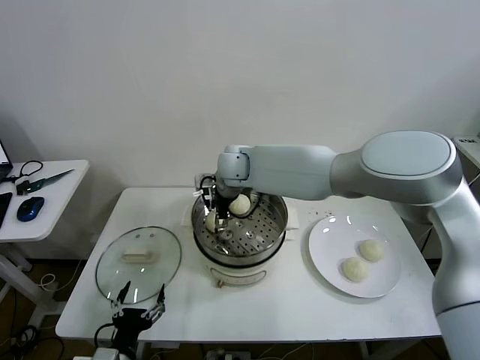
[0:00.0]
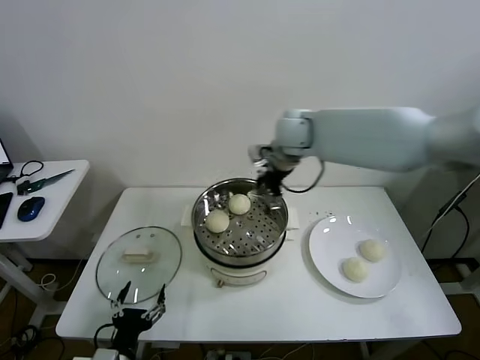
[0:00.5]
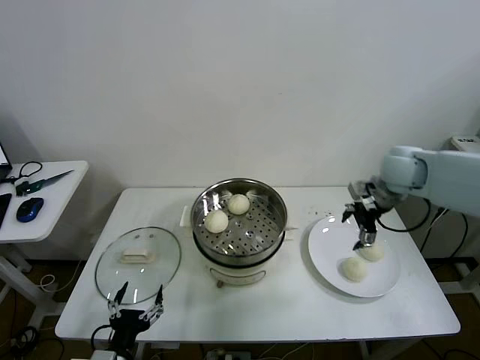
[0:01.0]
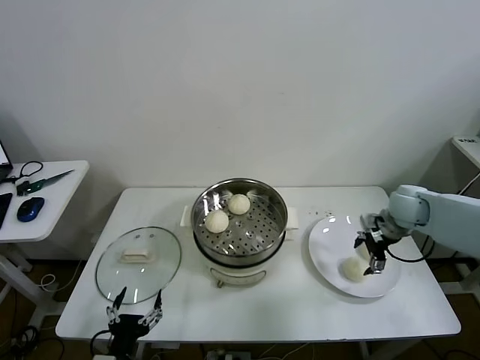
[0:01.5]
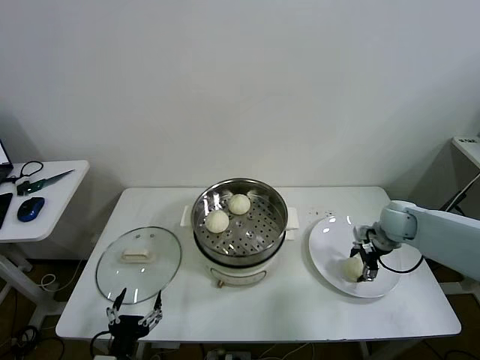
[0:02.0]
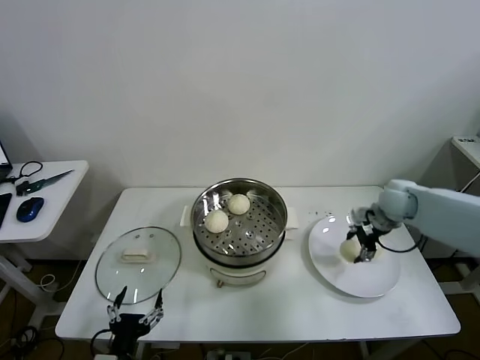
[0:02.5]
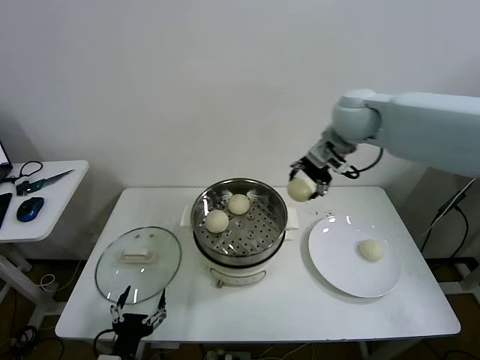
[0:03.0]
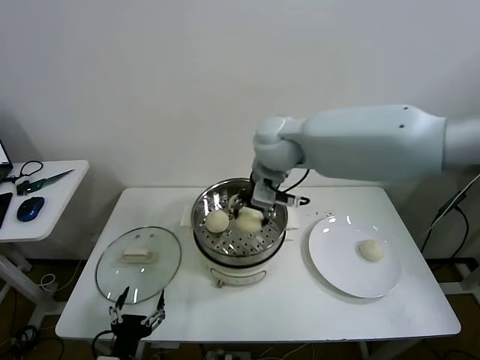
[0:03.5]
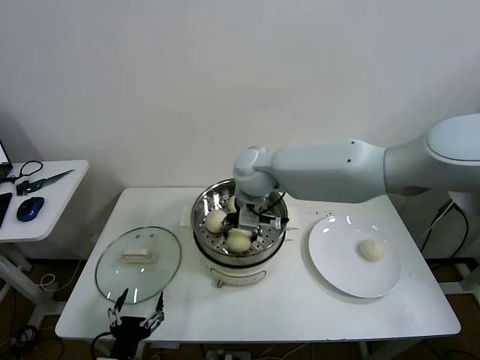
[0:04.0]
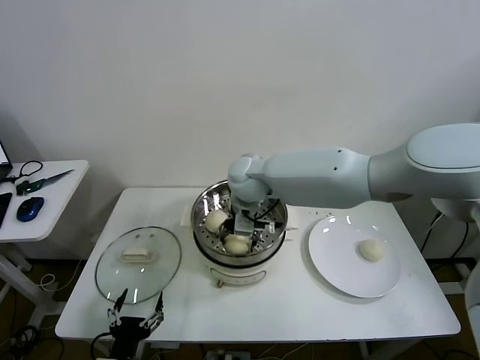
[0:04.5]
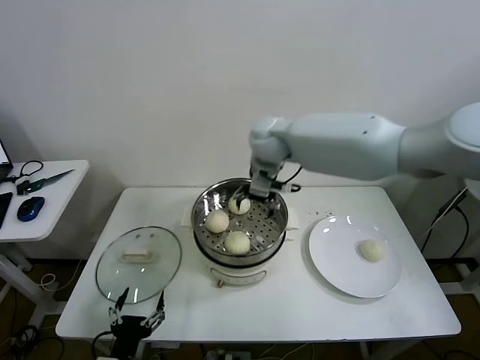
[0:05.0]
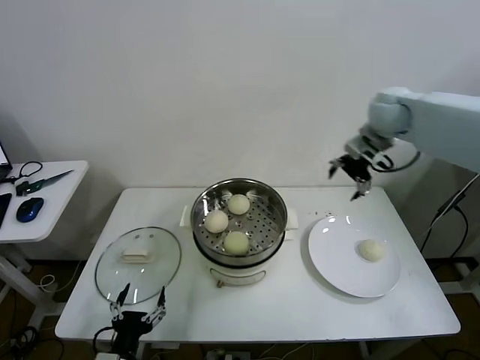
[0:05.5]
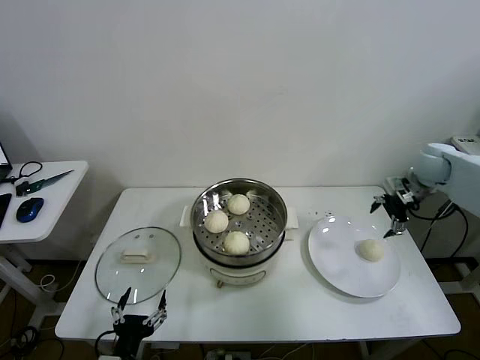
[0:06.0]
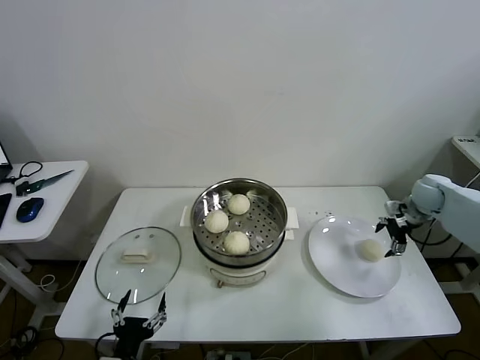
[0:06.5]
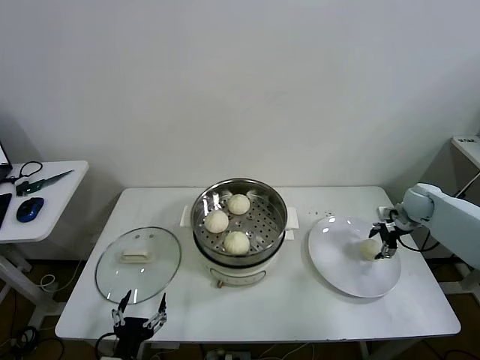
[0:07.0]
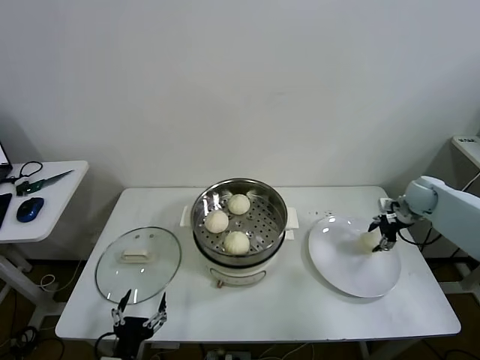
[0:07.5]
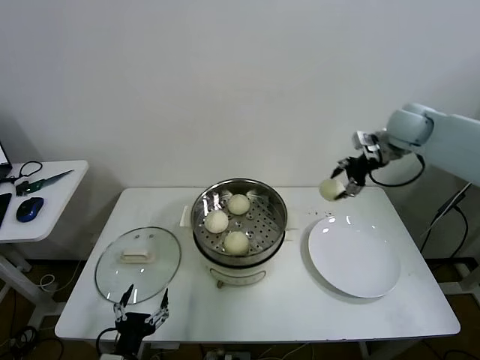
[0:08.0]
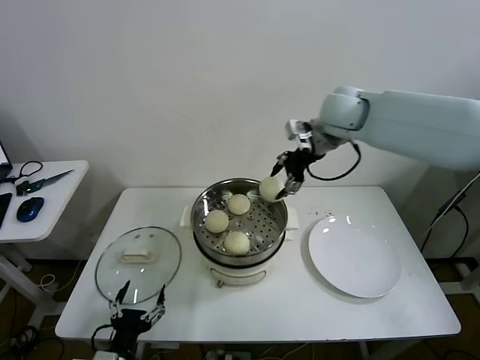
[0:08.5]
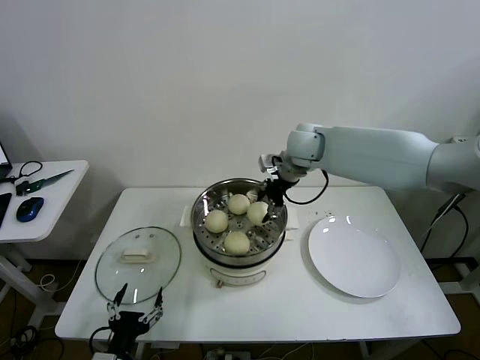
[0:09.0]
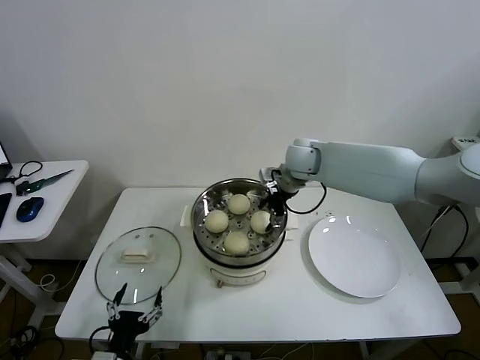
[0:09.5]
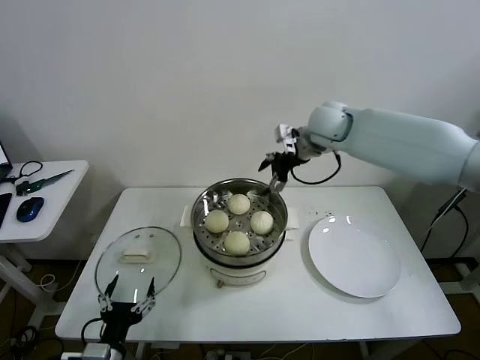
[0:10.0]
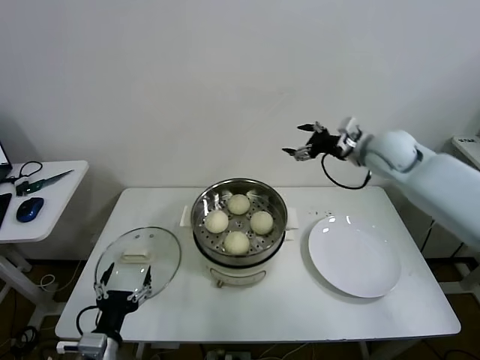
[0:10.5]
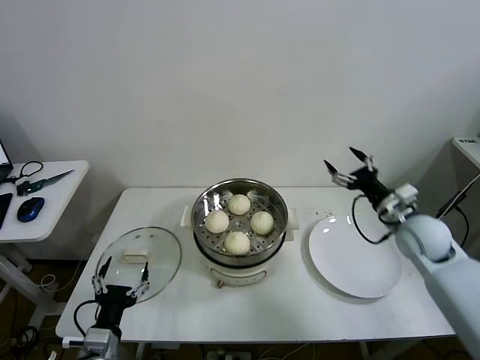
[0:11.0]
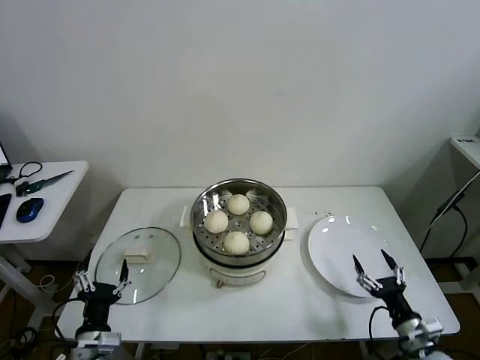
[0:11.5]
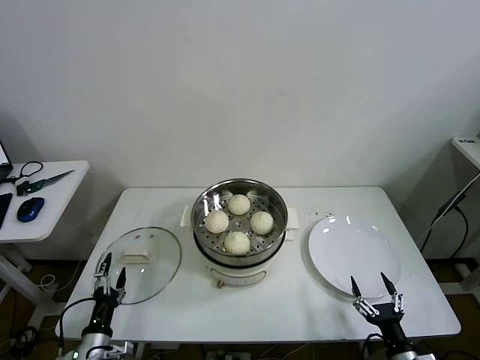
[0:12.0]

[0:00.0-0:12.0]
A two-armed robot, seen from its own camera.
Task of the whole recording: take steamed baozi put them in steamer then cover it.
Step, 0:00.5 to 0:02.0: Grasp the baozi in the plate with right gripper.
Step, 0:02.5 to 0:04.5: Place the baozi on the steamer with right gripper.
Step, 0:05.0 to 0:07.0: Grasp the baozi in the plate with right gripper.
Step, 0:07.5 to 0:09.5: Place the baozi on the steamer with right gripper.
0:00.0 to 0:02.0: The right gripper goes about 40 cm to the right.
0:02.0 to 0:04.0: The right gripper is displaced to the left and upward by about 40 cm, and closes its fingers.
0:04.0 to 0:06.0: The right gripper is displaced to the right by some 40 cm, and opens its fingers.
0:06.0 to 0:08.0: The right gripper shifts approximately 15 cm upward and to the left, and closes its fingers.
0:08.0 to 0:10.0: The right gripper travels to the left by some 15 cm, and opens up.
0:10.0 to 0:12.0: The left gripper is displaced downward and to the left by some 10 cm. Meanwhile the right gripper travels backward, downward and to the right by about 60 cm.

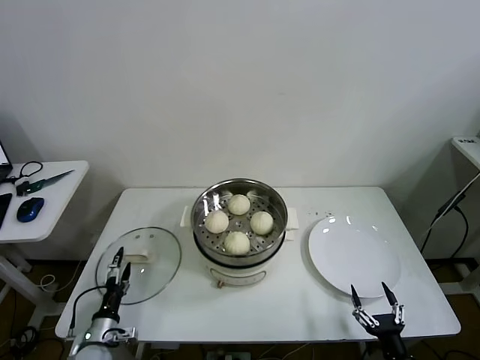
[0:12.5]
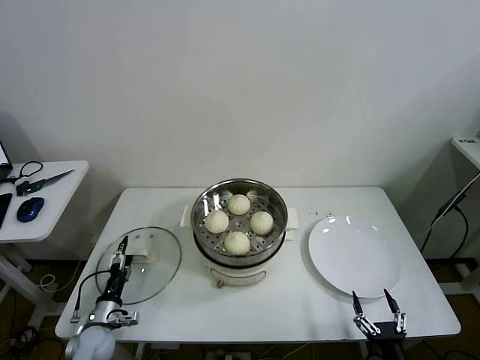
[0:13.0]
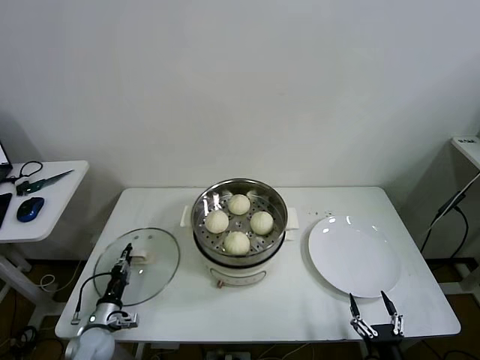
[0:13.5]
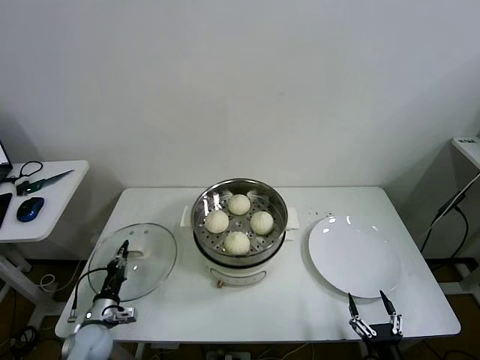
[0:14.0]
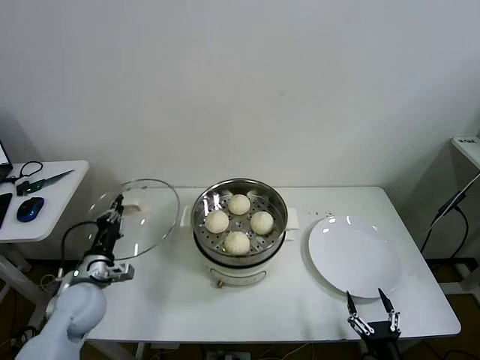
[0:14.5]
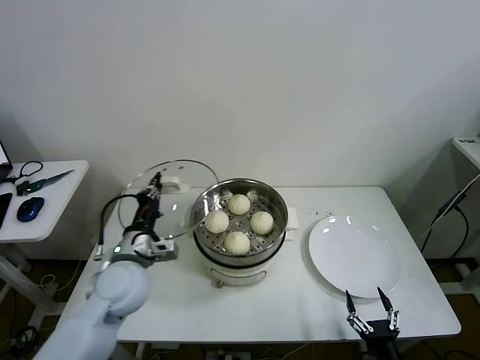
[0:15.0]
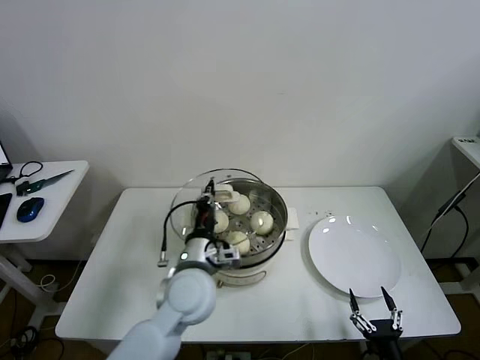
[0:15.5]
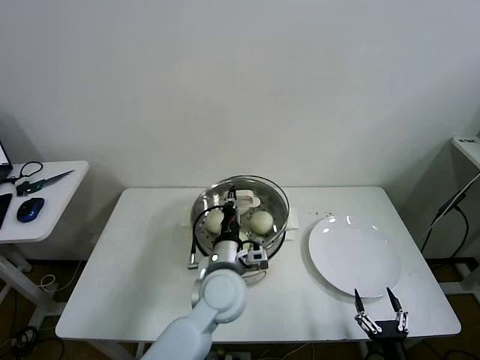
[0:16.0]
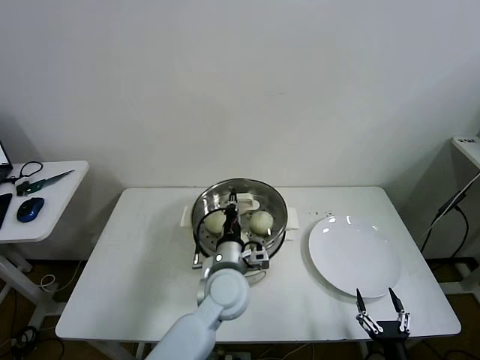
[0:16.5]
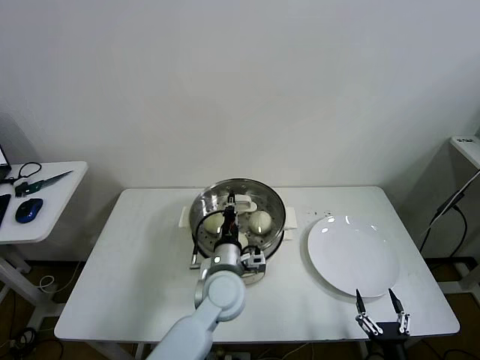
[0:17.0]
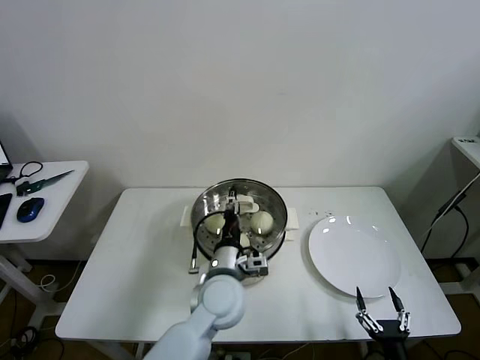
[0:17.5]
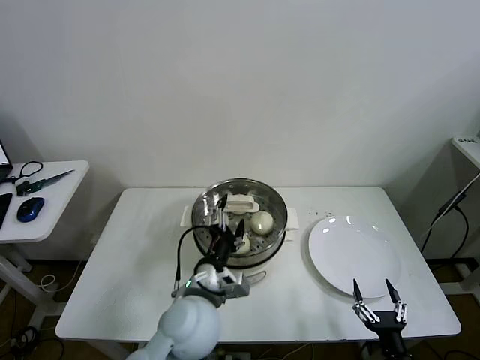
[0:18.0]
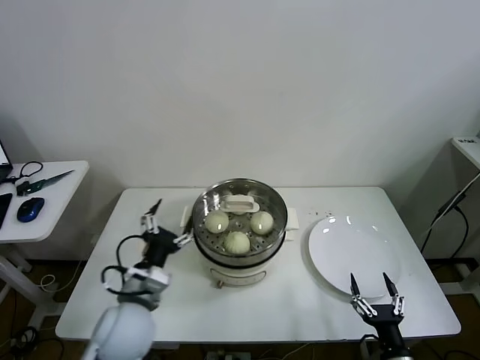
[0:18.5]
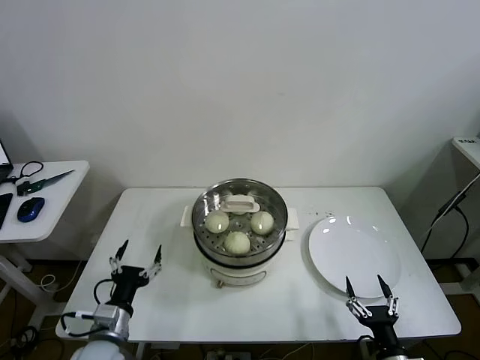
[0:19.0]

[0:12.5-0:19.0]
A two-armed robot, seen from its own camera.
Task of the whole recording: take steamed baozi put them in steamer then cover it.
Step, 0:14.0 to 0:17.5: Place the pot lid on the steamer with left gripper.
0:12.5 to 0:14.5: The left gripper goes some 20 cm upward and forward, and closes up.
0:14.5 to 0:17.0: The left gripper shifts about 30 cm to the right.
0:17.0 to 0:19.0: The left gripper travels to the left and backward by approximately 25 cm, and opens.
